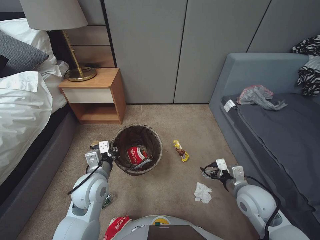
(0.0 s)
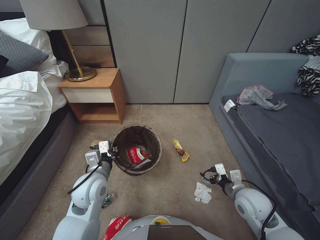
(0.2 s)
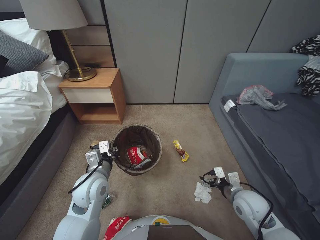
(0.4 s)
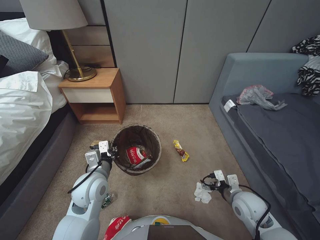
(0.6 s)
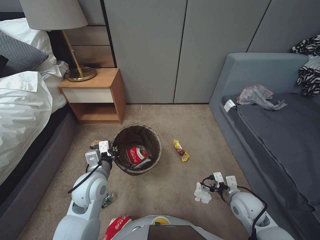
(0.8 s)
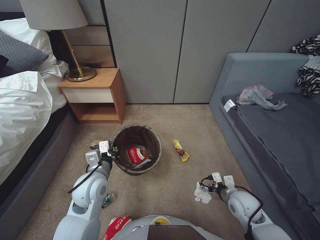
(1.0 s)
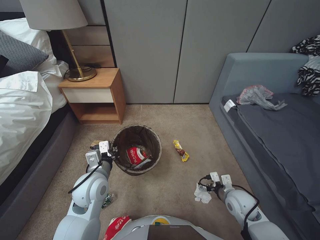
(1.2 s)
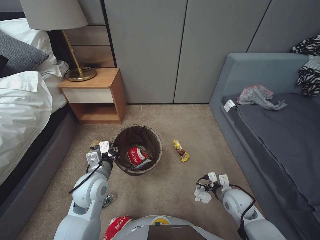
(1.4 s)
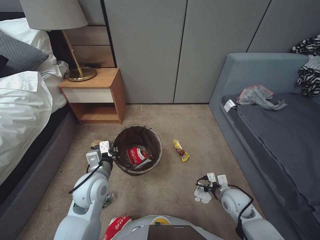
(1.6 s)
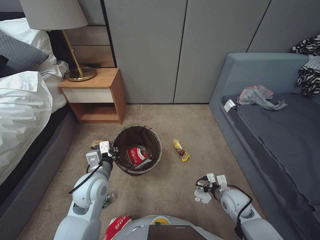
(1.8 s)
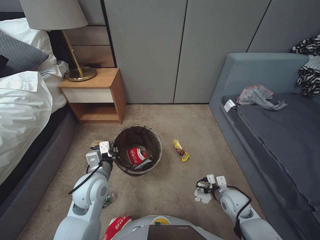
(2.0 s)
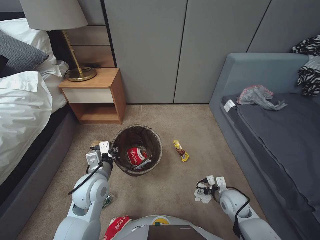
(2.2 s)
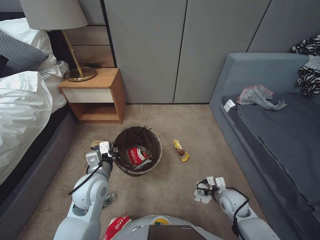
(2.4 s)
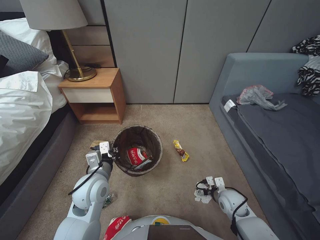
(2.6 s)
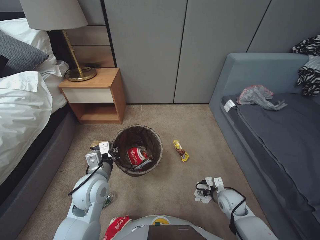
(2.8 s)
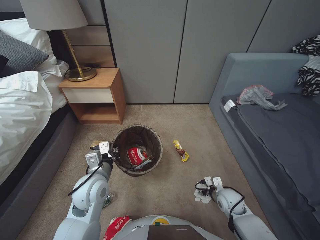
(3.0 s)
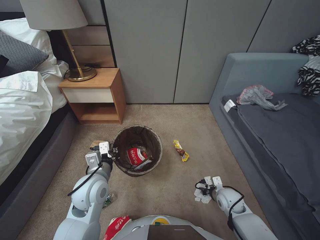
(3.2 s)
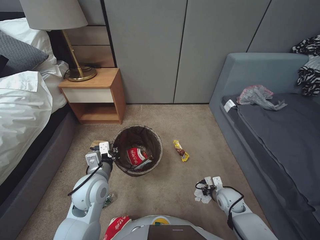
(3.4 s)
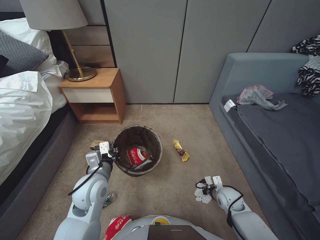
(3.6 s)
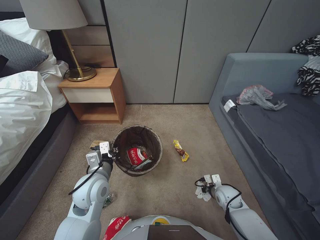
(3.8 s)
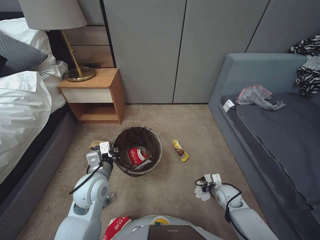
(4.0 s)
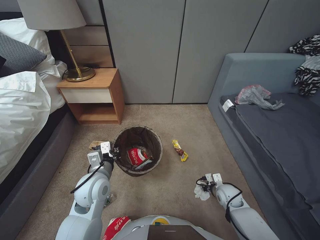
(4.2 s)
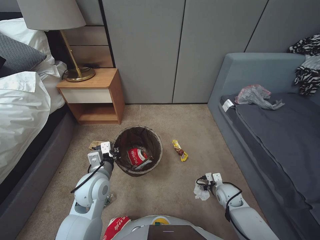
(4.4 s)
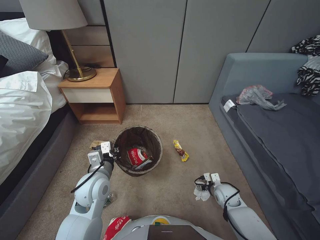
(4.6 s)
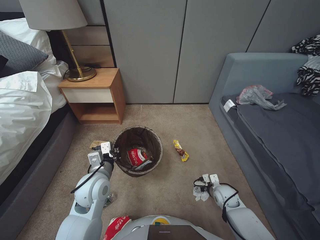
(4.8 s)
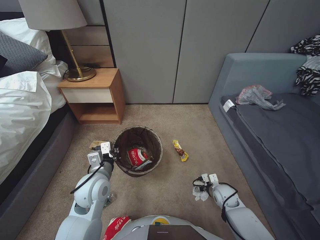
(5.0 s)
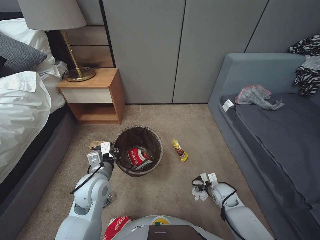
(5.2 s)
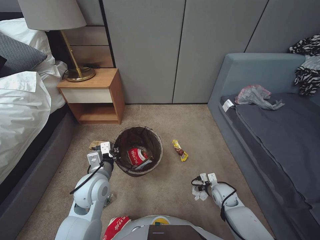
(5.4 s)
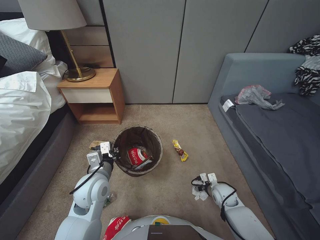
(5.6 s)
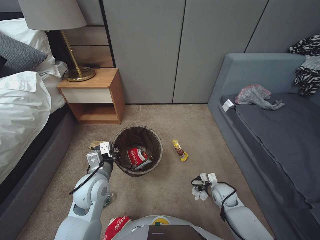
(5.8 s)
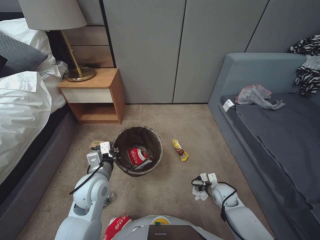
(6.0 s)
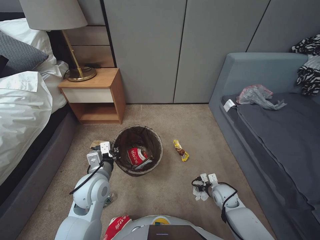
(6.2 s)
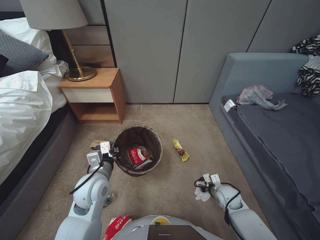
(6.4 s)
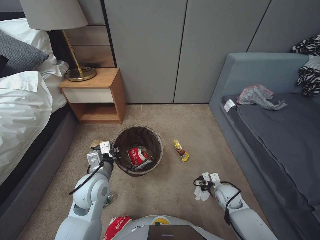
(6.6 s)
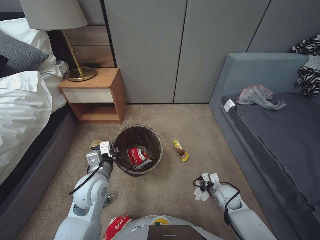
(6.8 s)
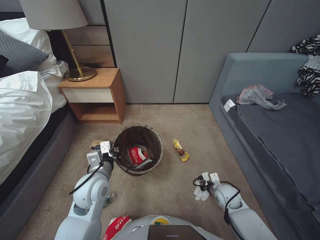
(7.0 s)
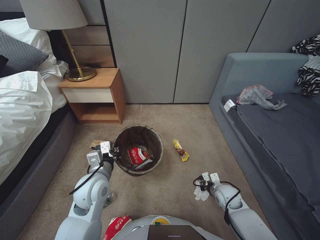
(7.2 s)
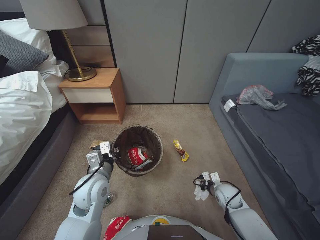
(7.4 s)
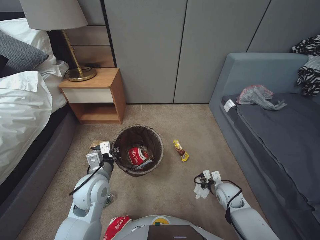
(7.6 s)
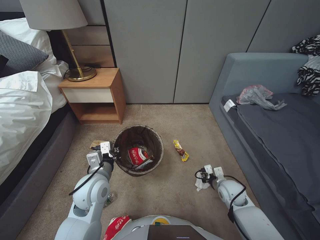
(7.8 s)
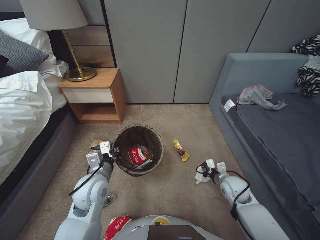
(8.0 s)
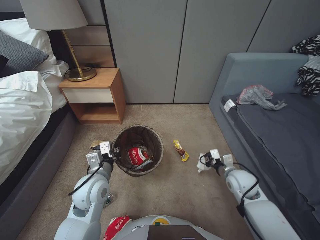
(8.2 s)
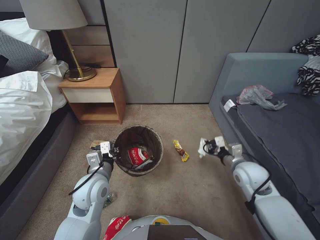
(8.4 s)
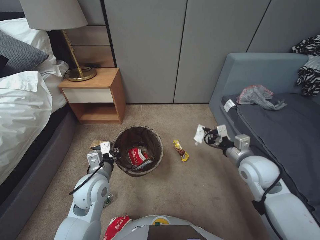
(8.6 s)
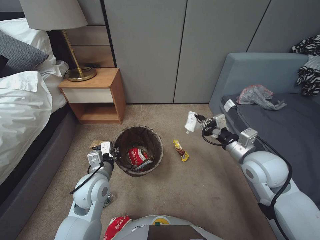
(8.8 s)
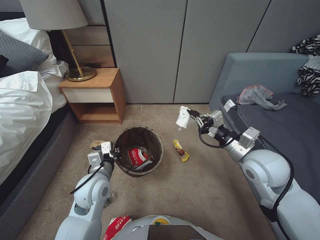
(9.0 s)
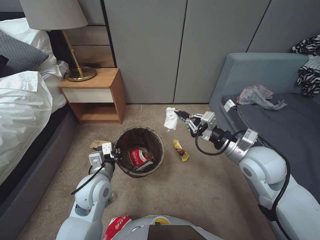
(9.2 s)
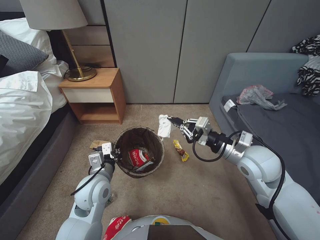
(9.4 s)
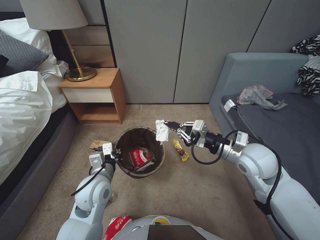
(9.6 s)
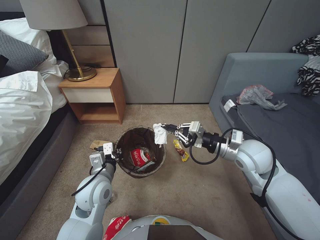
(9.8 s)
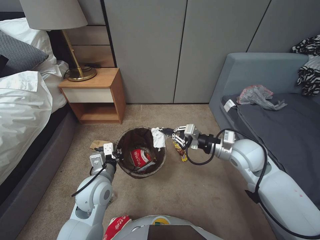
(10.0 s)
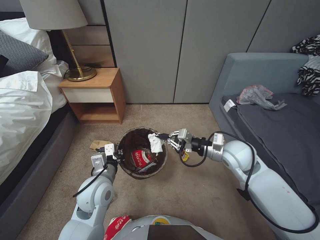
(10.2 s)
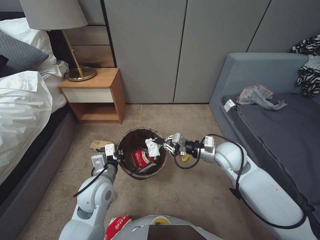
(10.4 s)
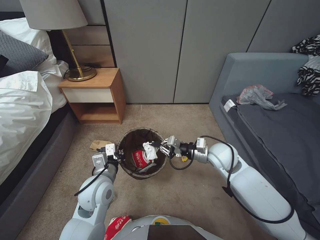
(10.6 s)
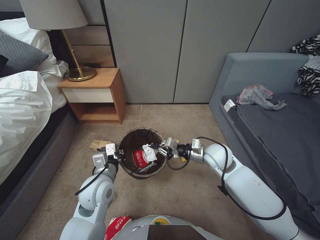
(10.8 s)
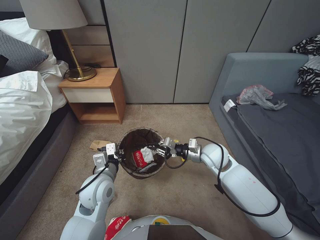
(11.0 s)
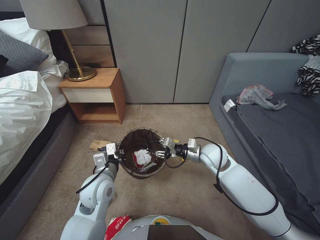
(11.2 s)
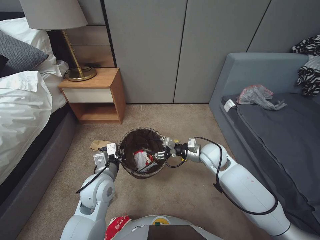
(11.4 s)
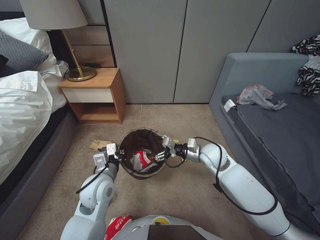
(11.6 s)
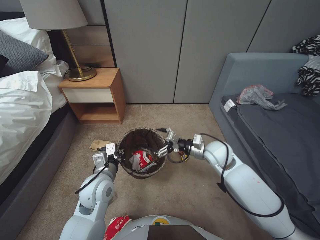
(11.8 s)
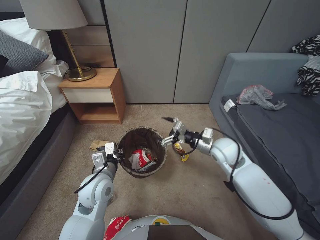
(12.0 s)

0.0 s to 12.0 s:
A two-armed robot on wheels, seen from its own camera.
Task of the whole recording: Pick up the trash bin, then pick up the garbage from the floor and place it into the trash bin.
0.0 to 1.6 s: The right gripper moves downward, roughly 10 cm.
1.6 to 3.0 s: The right gripper shifts roughly 5 cm downward.
3.0 to 4.4 s: The right gripper closes and opens again.
4.4 to 6.0 s: The right gripper opens, then closes once more.
6.0 to 7.6 s: The right gripper closes its fingers.
7.6 to 9.0 s: The right gripper is displaced upward by approximately 30 cm.
9.0 to 10.4 s: The right gripper moves forward and to the left, approximately 10 cm.
10.4 to 12.0 s: The right gripper opens its fingers.

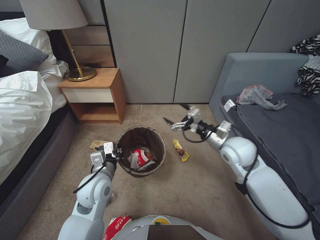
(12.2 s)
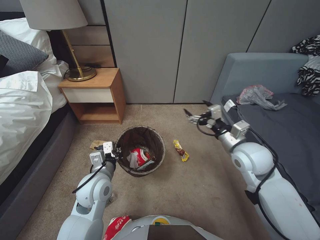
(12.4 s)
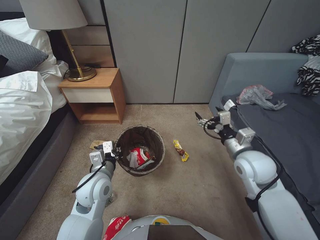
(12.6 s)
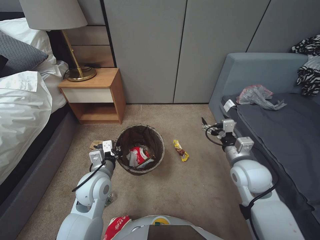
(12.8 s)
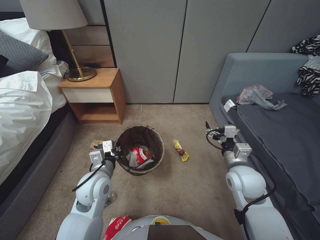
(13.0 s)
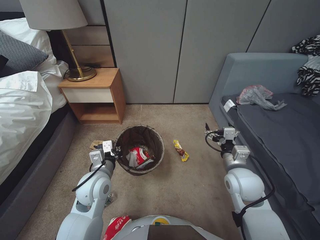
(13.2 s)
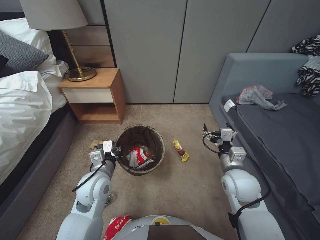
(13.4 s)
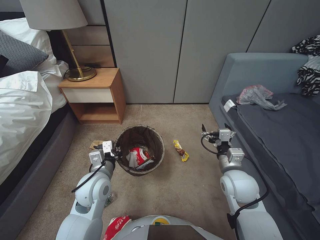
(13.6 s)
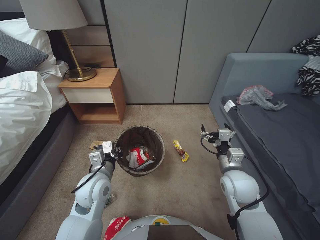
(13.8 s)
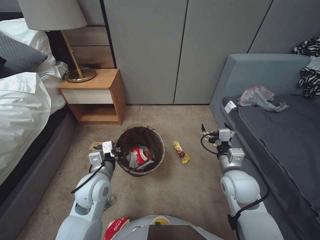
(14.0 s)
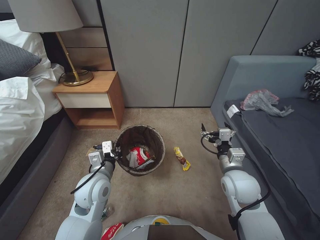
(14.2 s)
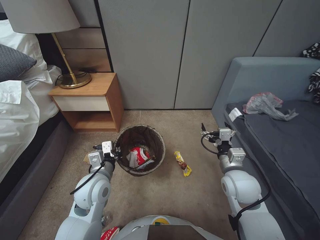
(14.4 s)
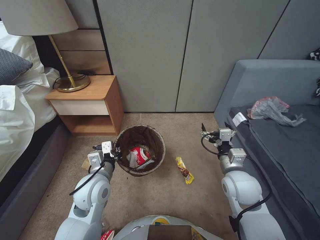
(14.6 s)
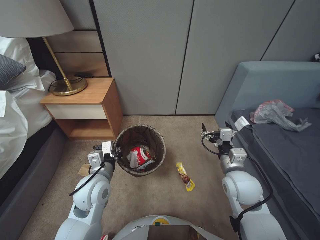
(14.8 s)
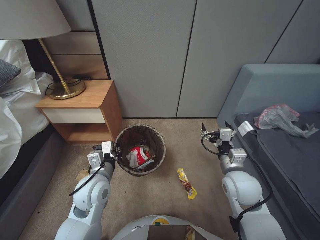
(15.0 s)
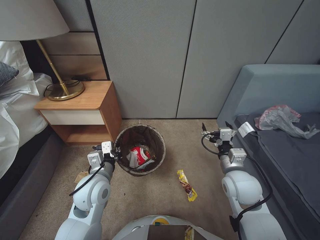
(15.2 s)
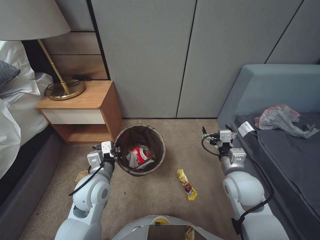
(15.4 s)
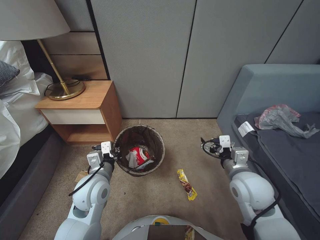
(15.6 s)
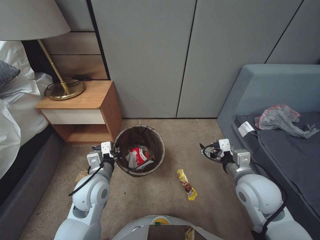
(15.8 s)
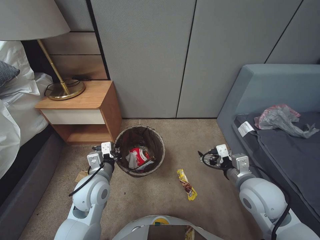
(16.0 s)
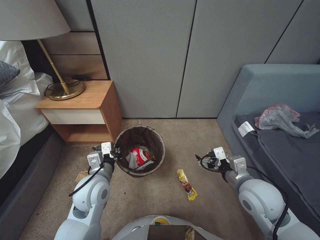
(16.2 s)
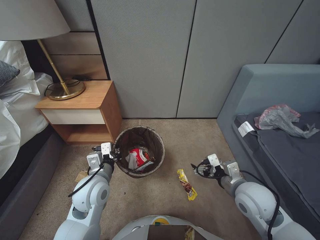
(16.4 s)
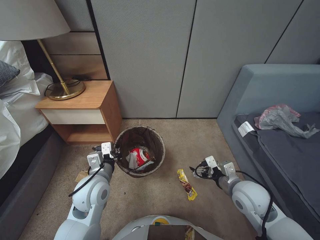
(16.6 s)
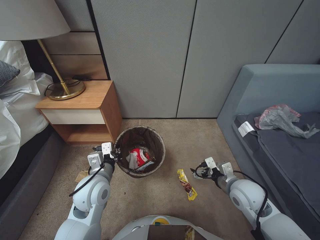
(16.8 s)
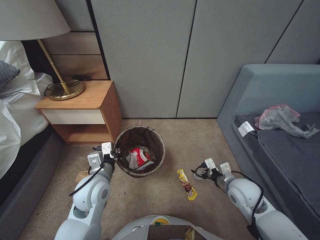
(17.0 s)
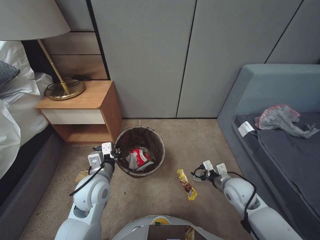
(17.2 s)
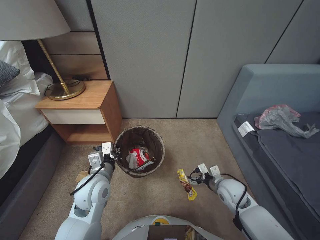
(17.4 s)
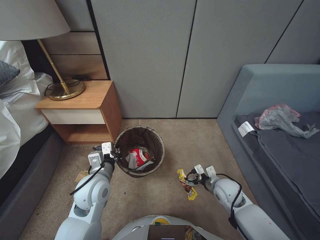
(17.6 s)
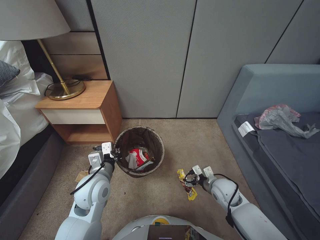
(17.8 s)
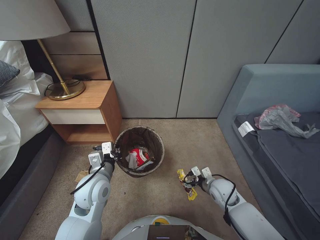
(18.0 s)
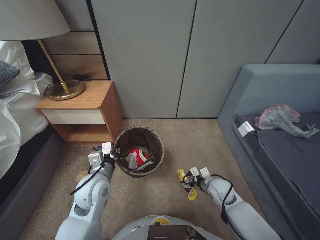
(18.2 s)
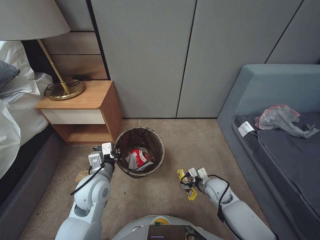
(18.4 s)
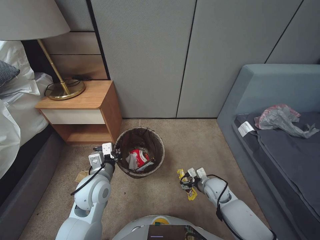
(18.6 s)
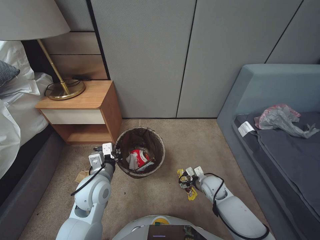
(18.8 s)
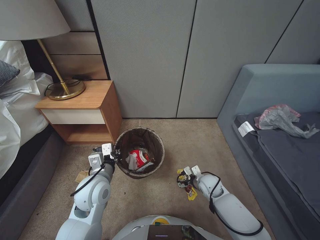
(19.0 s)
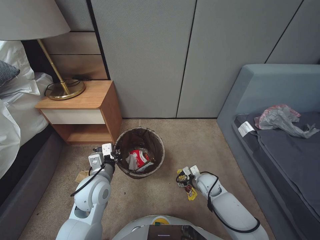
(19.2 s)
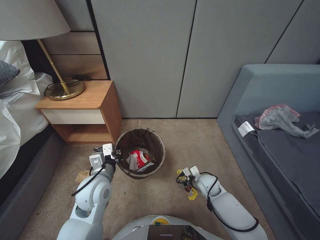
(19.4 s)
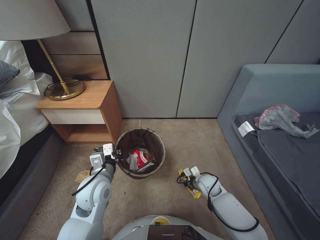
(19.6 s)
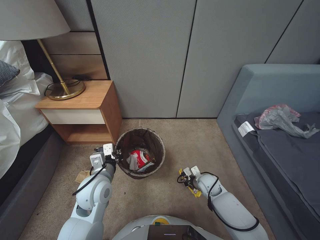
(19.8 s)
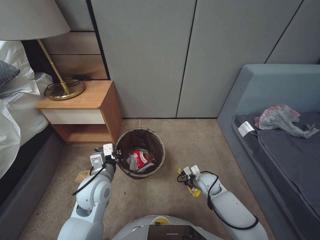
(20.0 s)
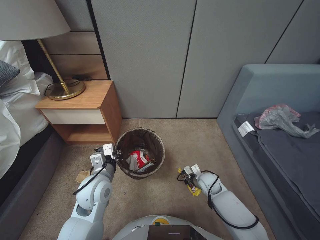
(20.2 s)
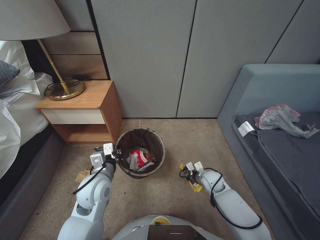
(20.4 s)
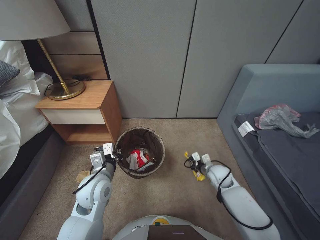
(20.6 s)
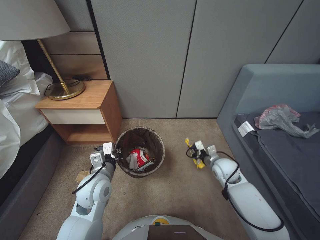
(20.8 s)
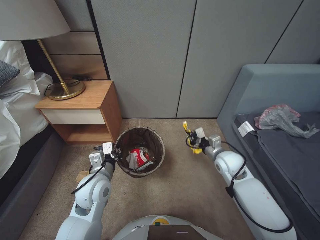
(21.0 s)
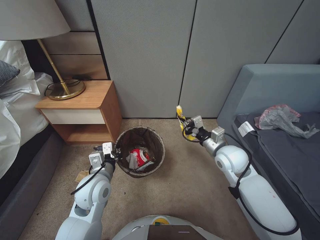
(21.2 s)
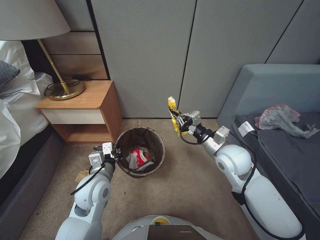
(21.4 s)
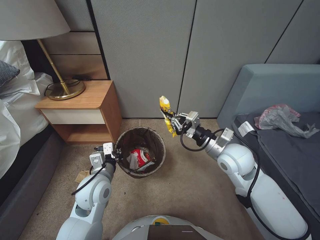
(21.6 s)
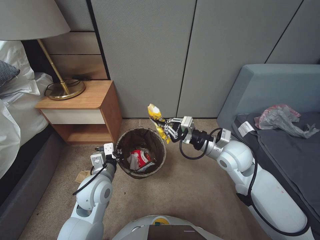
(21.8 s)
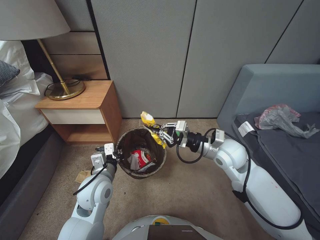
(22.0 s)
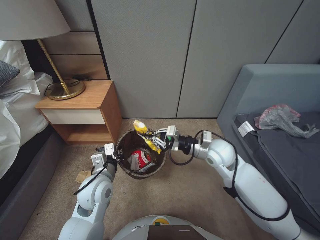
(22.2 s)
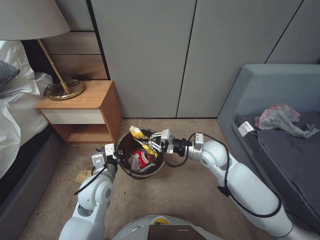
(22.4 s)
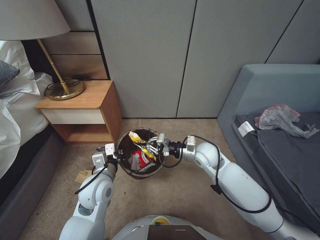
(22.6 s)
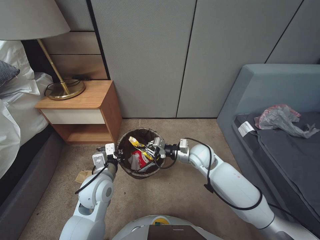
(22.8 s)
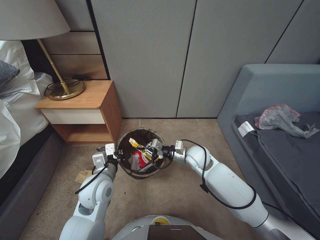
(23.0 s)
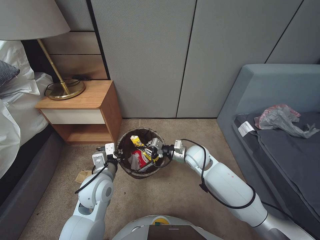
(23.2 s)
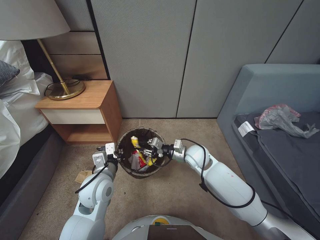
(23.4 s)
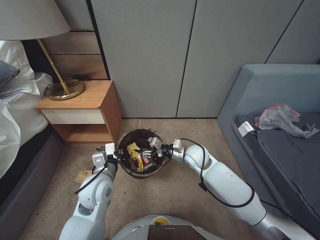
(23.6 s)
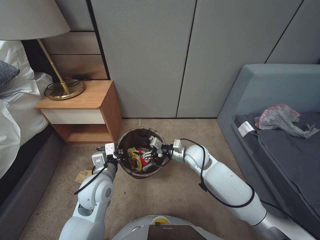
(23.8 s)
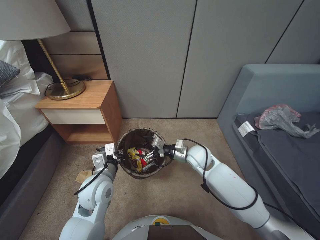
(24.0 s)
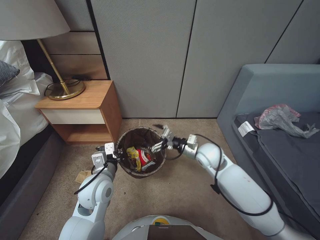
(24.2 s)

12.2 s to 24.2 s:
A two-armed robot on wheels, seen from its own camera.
Task of the whole recording: Pick up the trash bin, then pick up the garbage from the floor and place it into the trash bin.
12.2 to 13.8 s: The right gripper goes roughly 10 cm backward and downward.
16.6 to 18.2 s: The right gripper travels downward and forward by about 20 cm.
18.2 to 19.8 s: The right gripper heads downward, covering approximately 5 cm, and closes up.
19.8 to 21.2 s: The right gripper goes about 25 cm upward.
21.2 to 22.6 s: The right gripper travels to the left by roughly 5 cm.
22.6 to 24.2 s: The right gripper is displaced downward by some 5 cm, and opens up.
